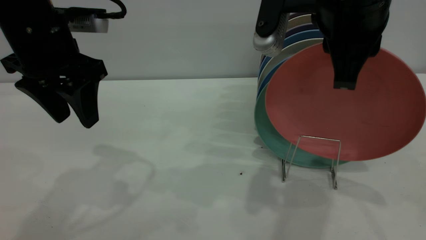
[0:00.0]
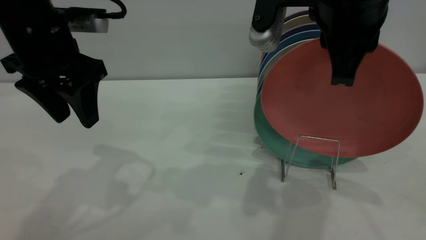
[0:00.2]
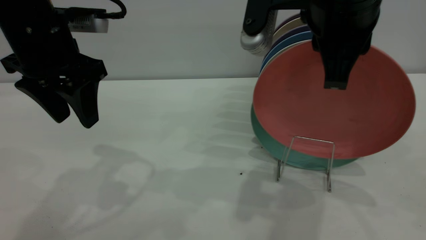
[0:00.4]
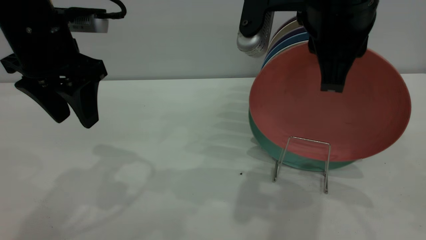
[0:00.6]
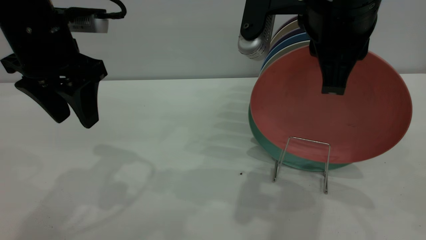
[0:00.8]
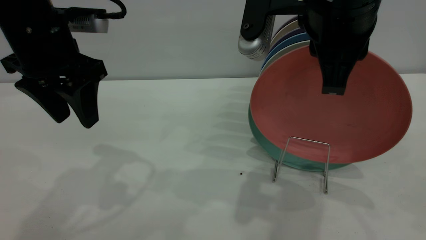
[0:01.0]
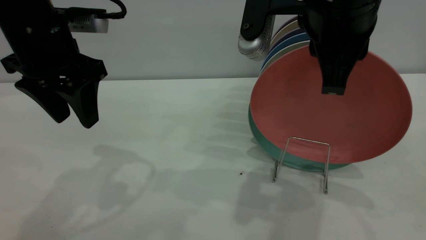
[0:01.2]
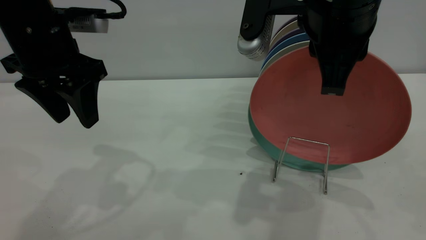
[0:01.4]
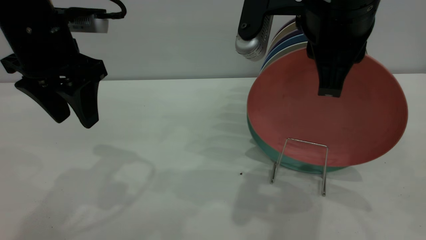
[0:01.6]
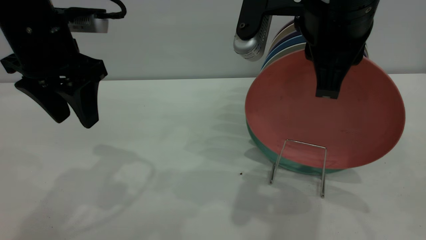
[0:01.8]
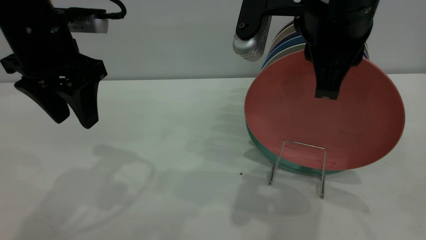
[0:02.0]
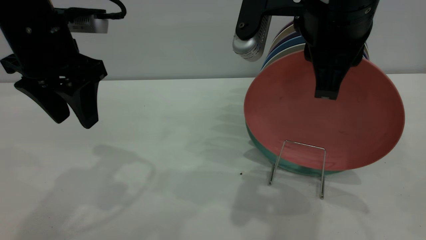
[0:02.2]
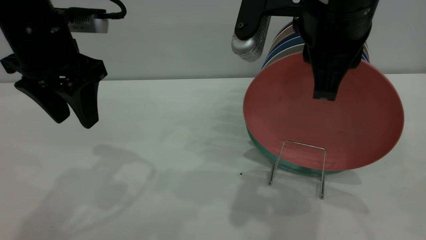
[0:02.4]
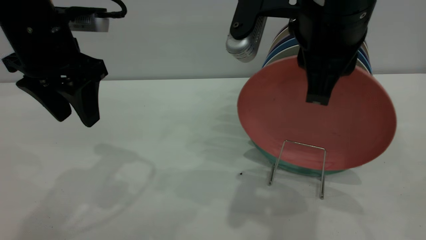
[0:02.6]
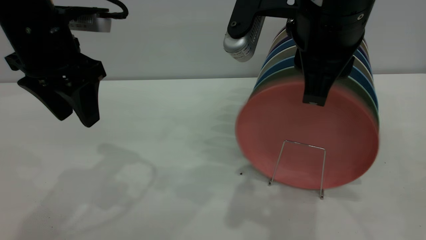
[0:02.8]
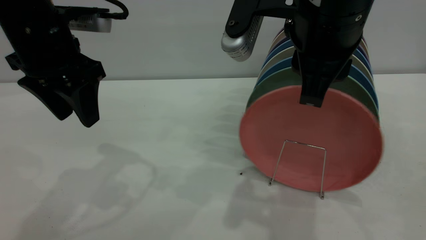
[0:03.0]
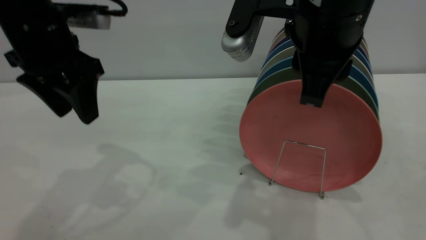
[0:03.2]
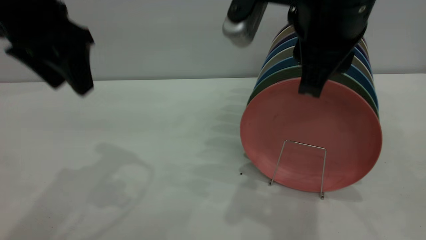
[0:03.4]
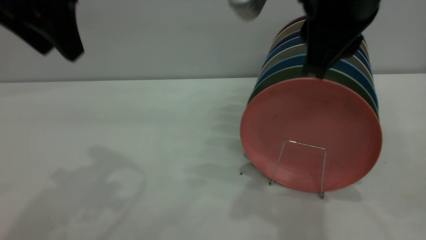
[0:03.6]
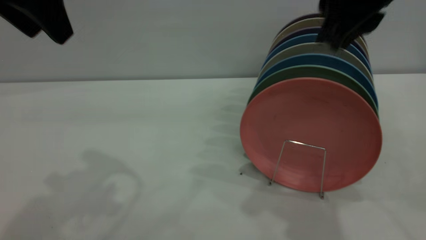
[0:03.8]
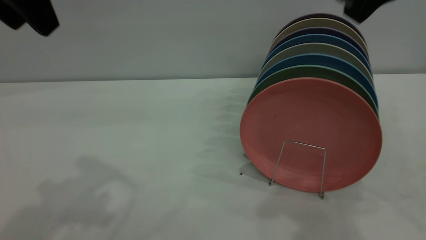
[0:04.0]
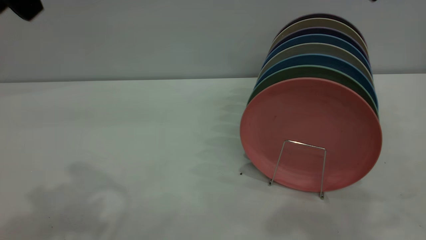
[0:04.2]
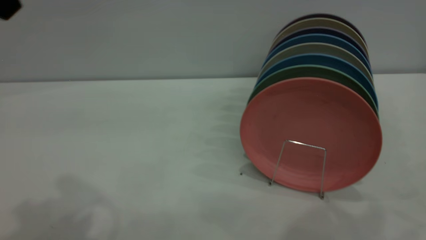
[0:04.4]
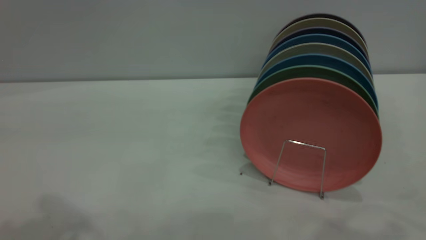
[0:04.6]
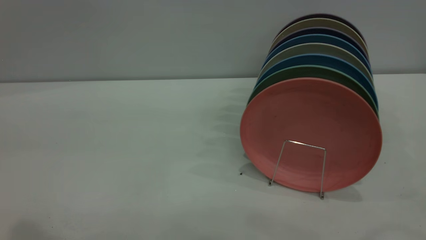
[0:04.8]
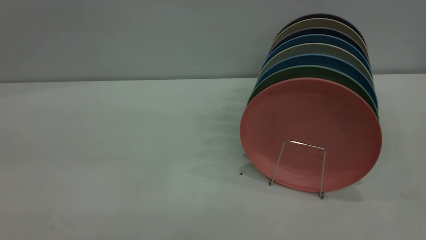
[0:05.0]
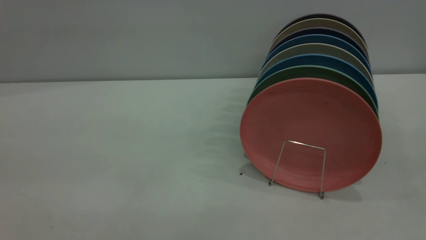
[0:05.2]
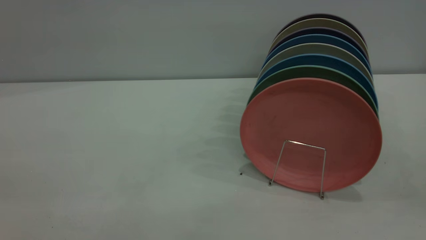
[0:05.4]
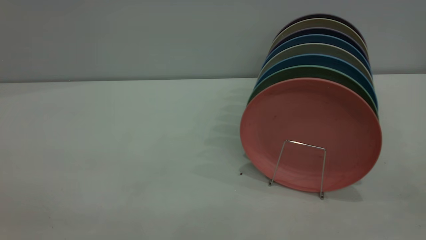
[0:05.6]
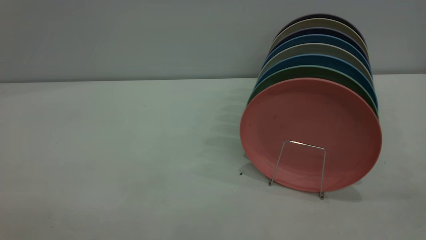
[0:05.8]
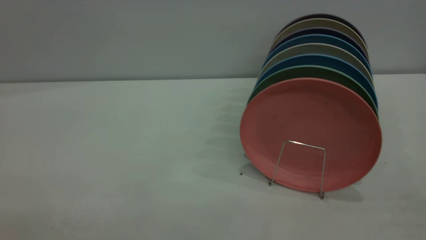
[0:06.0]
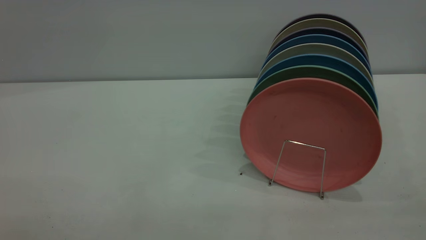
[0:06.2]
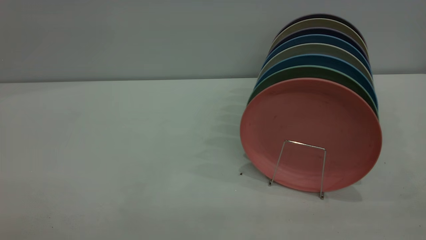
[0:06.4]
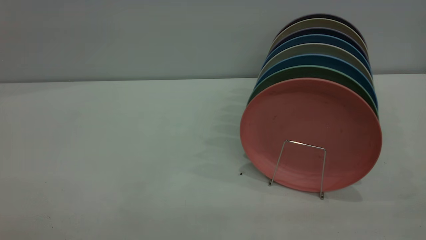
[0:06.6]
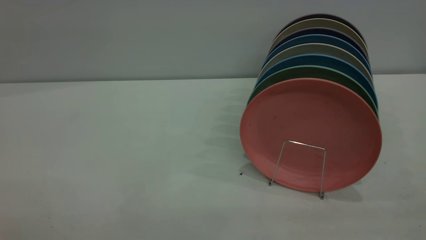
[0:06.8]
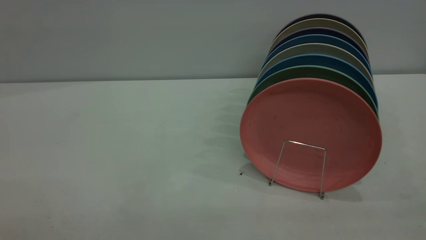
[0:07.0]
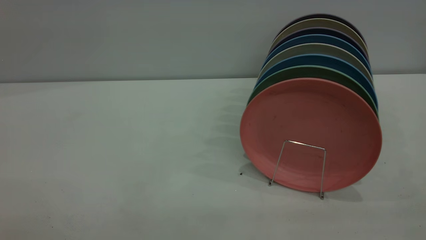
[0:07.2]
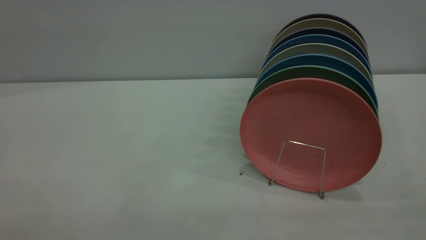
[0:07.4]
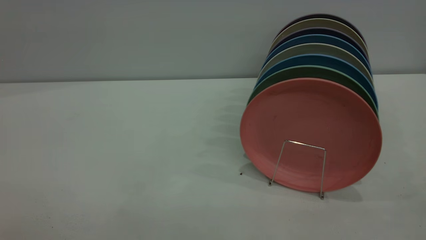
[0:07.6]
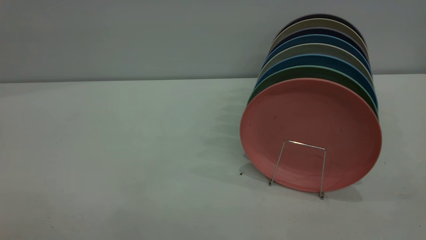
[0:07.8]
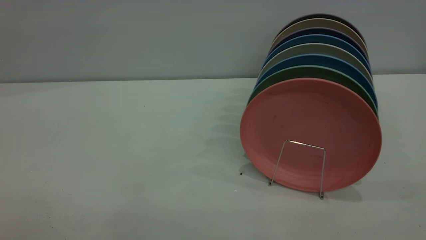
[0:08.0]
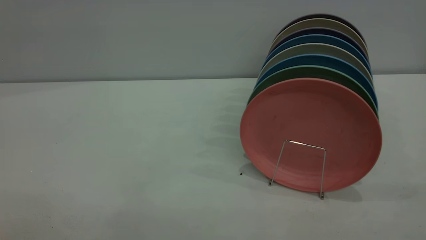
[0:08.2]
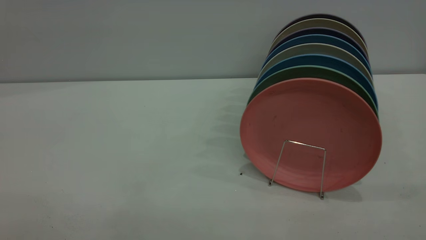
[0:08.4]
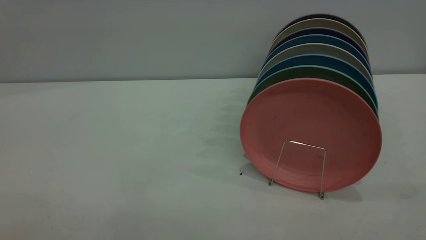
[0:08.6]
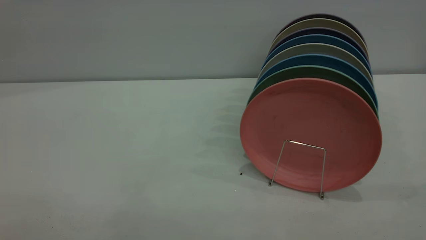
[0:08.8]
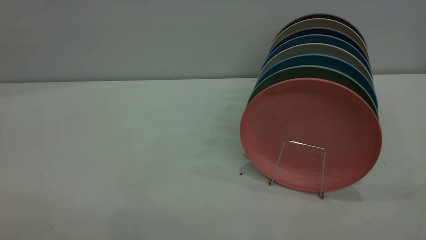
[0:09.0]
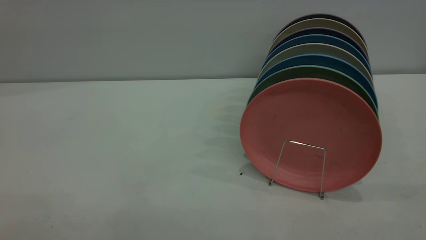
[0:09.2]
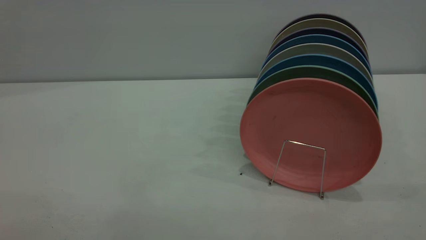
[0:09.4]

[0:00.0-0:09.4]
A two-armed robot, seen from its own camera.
Task of the whole recording: put the plate on the plate rack.
Step, 0:00.0 to 0:03.8: Place the plate on the shelf.
0:00.0 to 0:01.6: The grippers make only small movements.
0:01.6 to 0:03.2: The right gripper opens up.
0:03.2 to 0:04.8: The left gripper is displaced backward and upward by roughly 25 cm; the right gripper is displaced upward, backward and to the right by approximately 25 cm.
